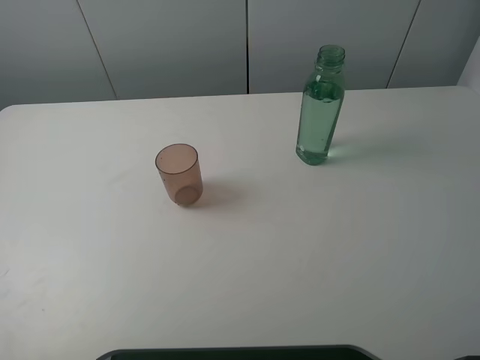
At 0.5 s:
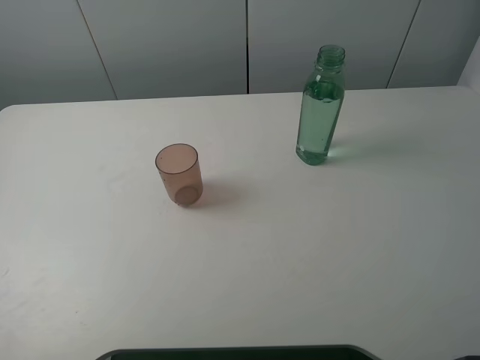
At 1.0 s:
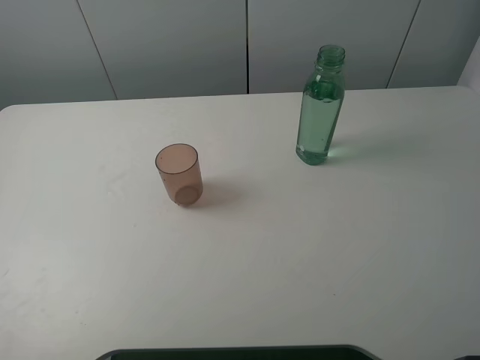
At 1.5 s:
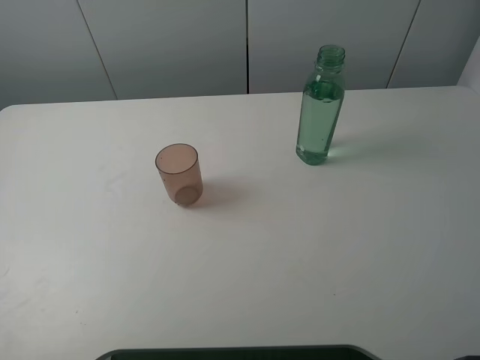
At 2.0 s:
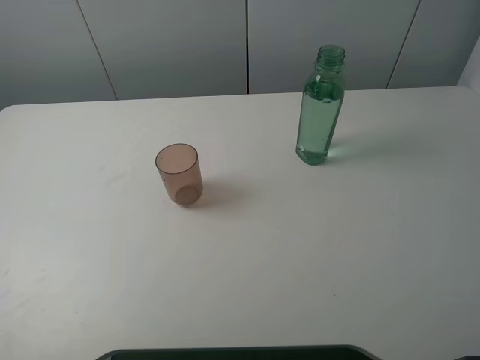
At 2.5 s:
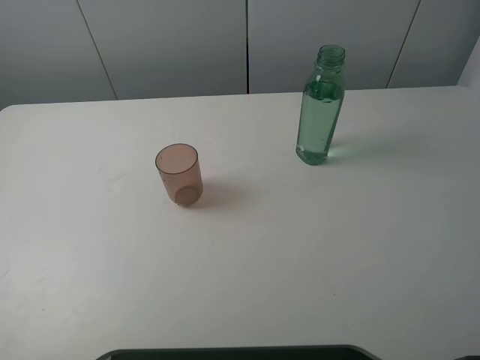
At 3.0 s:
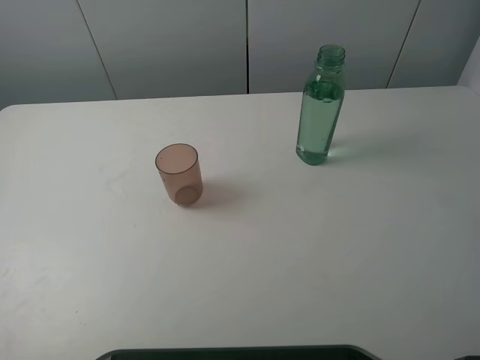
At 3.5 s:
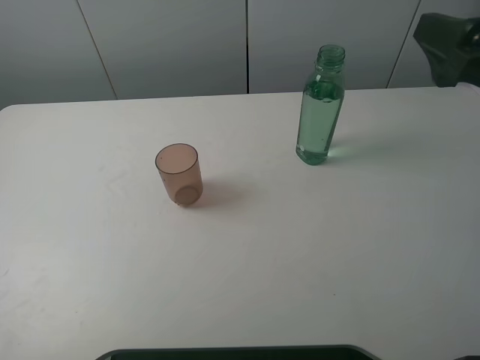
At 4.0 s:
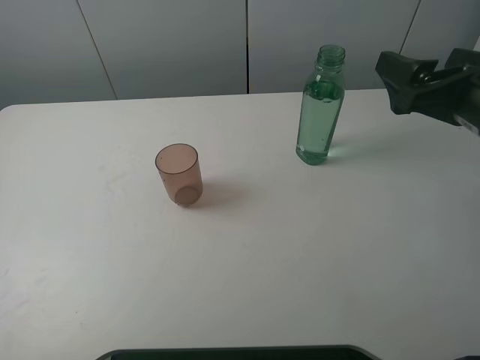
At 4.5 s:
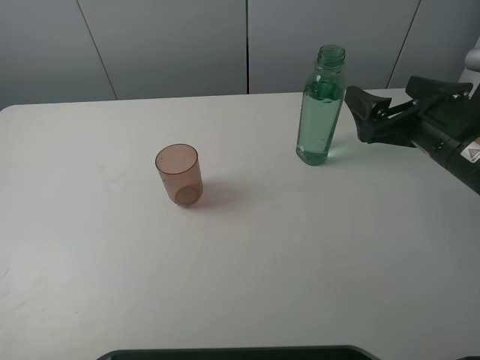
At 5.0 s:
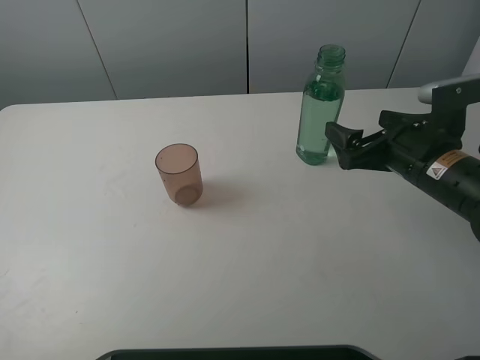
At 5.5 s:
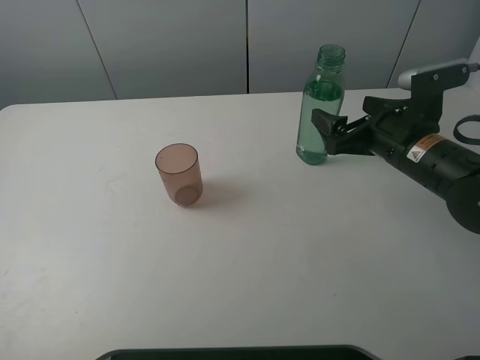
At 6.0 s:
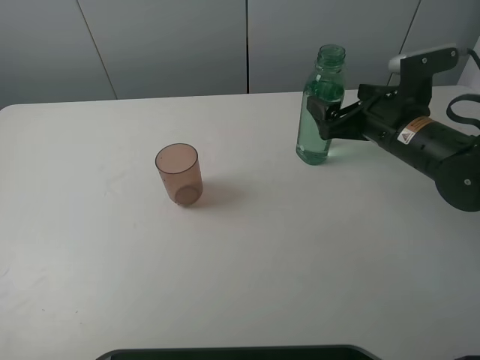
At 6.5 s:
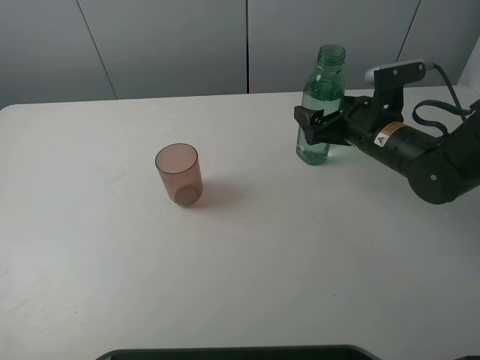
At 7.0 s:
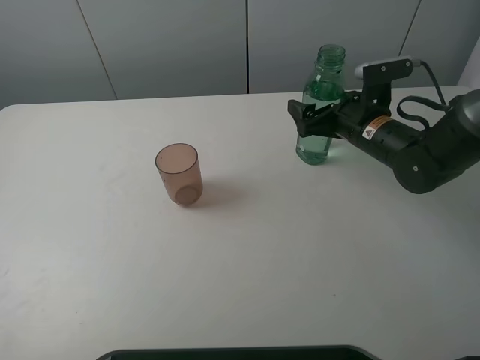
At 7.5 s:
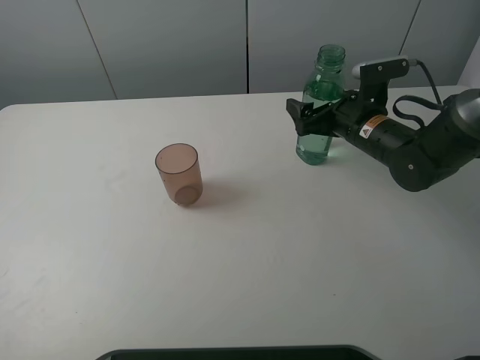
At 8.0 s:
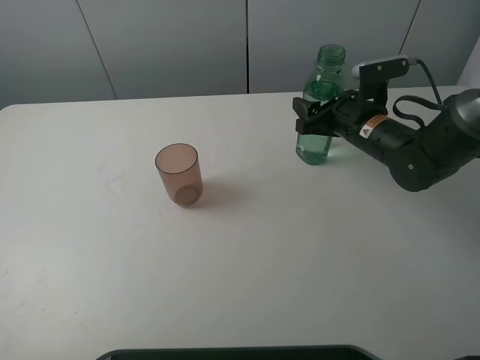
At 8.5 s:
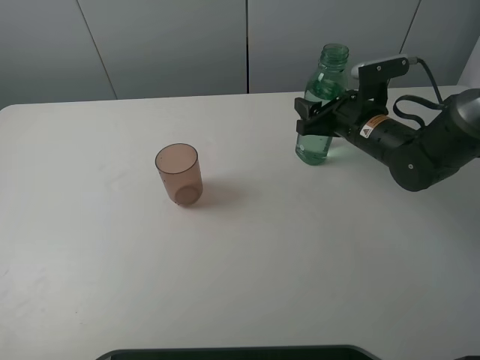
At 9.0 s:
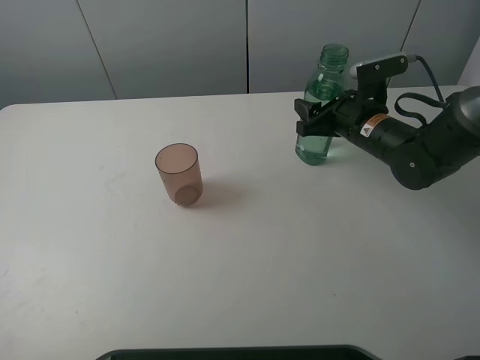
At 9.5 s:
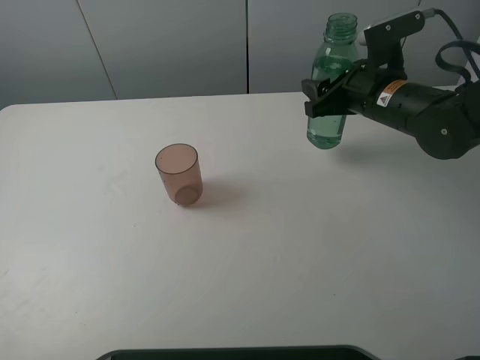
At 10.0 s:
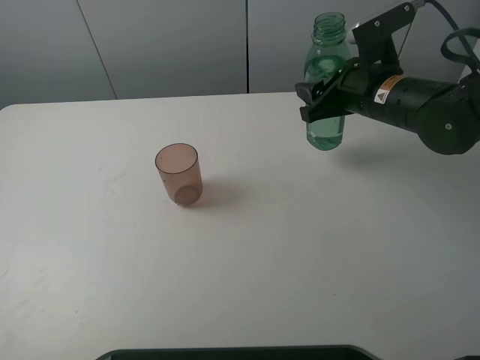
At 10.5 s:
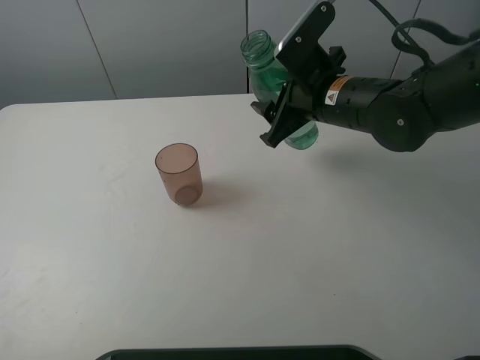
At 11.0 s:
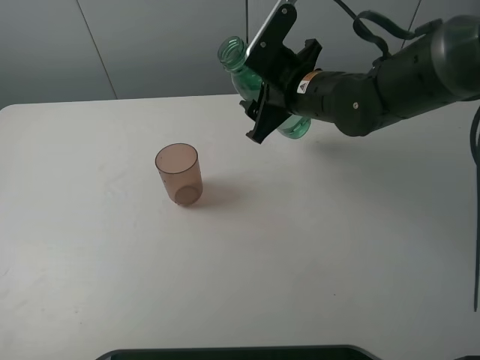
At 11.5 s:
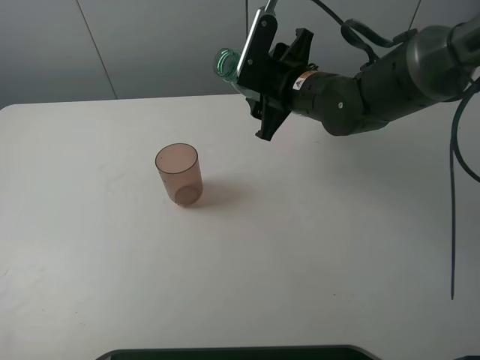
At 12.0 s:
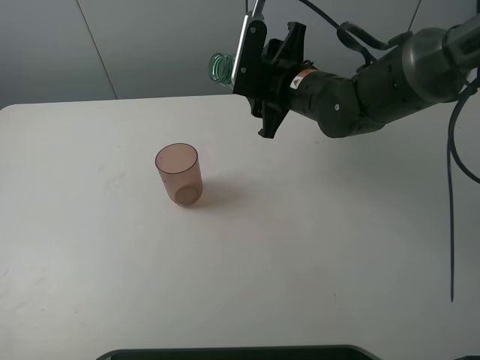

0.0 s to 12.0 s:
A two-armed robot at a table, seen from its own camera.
Task of the whole recording: pick up the bottle filled with water and pour it into the pink cup.
Step, 0.0 to 8.0 s: Grasp the green bottle with the right gripper.
2.0 to 4.0 s: The right gripper heads forward, covering some 20 cm.
4.0 to 6.0 s: The right gripper heads downward and forward, covering about 15 cm.
6.0 to 8.0 s: The right gripper goes approximately 5 cm forward.
8.0 to 10.0 s: The right gripper goes some 5 cm upward, and closes.
10.0 to 12.0 s: The right gripper goes about 10 cm to the left.

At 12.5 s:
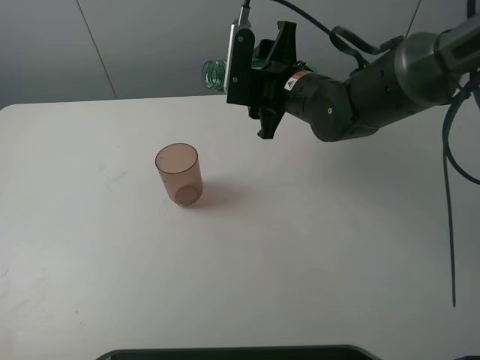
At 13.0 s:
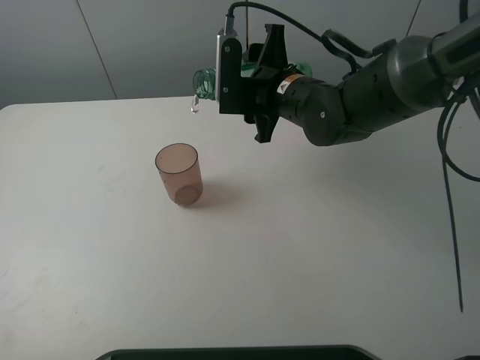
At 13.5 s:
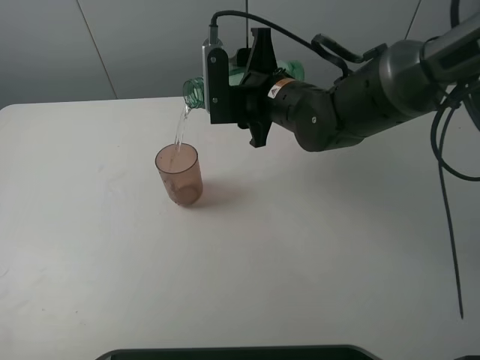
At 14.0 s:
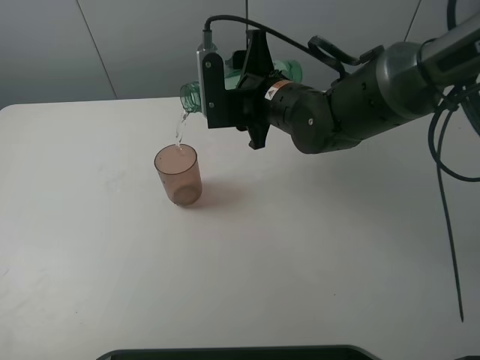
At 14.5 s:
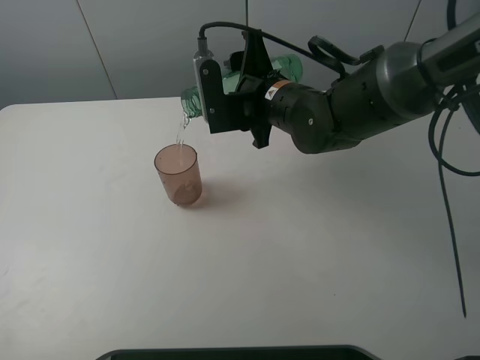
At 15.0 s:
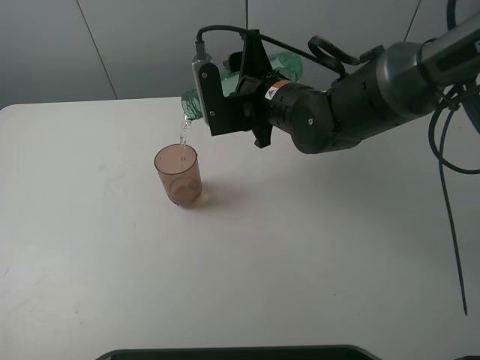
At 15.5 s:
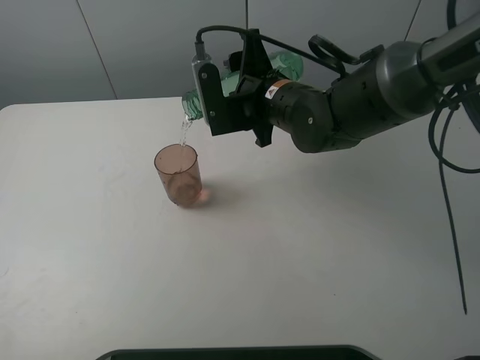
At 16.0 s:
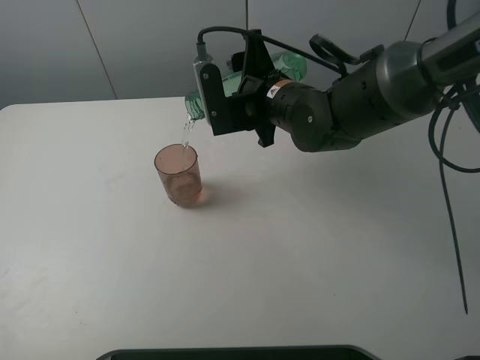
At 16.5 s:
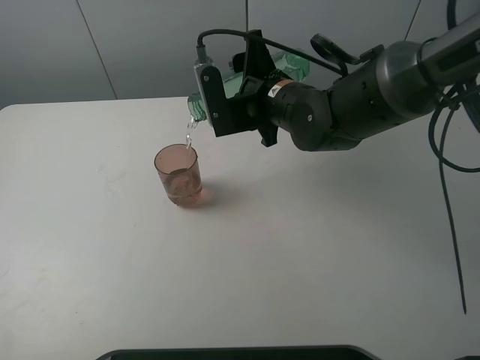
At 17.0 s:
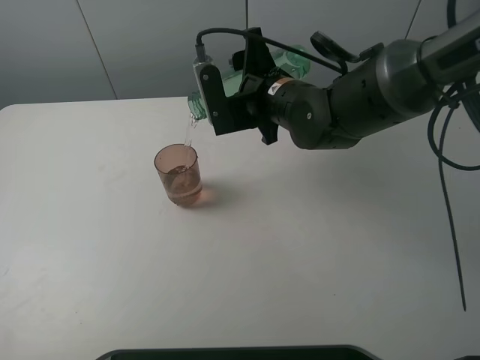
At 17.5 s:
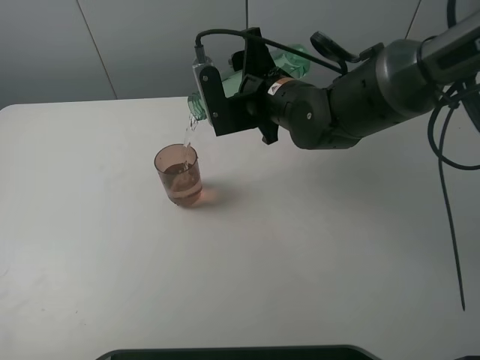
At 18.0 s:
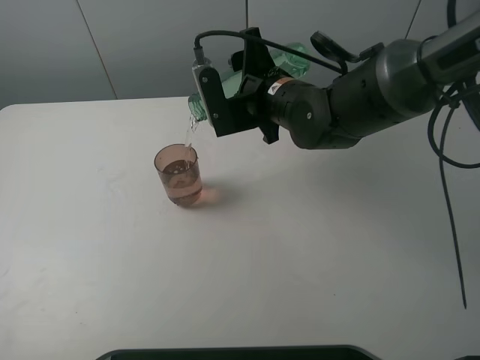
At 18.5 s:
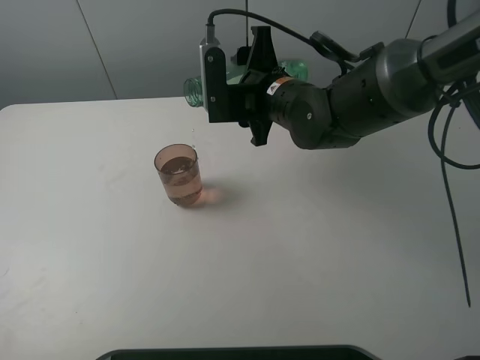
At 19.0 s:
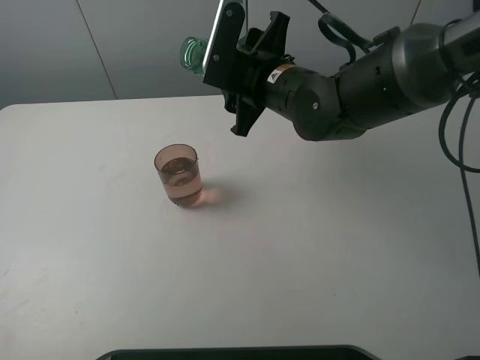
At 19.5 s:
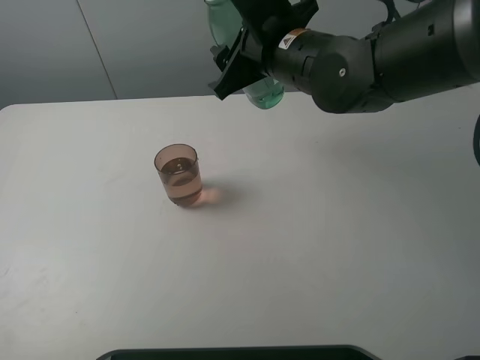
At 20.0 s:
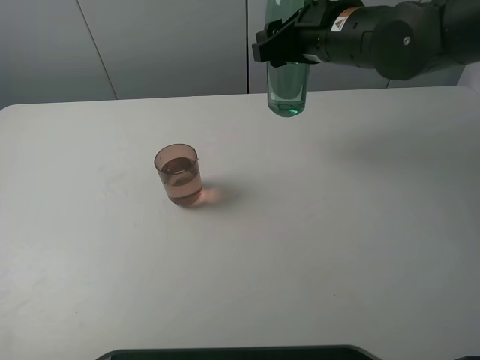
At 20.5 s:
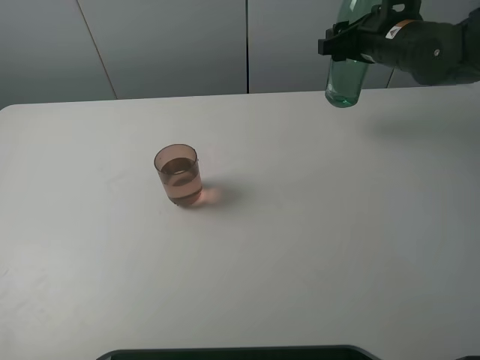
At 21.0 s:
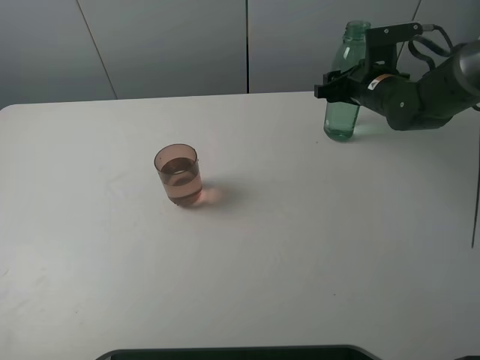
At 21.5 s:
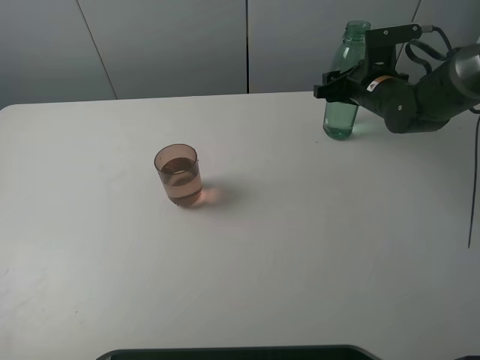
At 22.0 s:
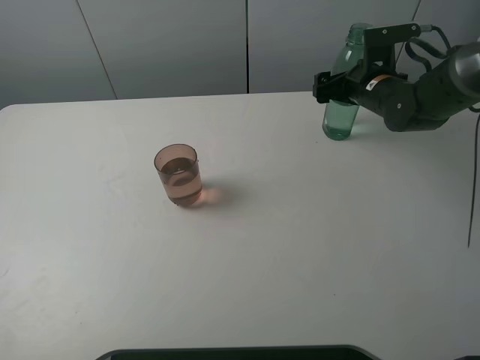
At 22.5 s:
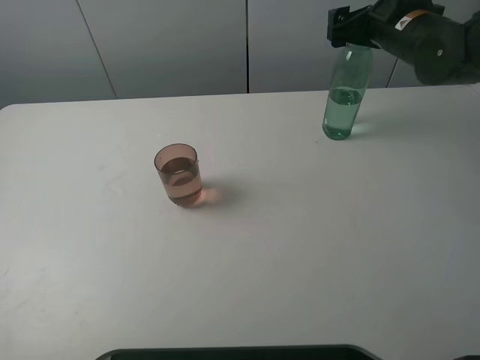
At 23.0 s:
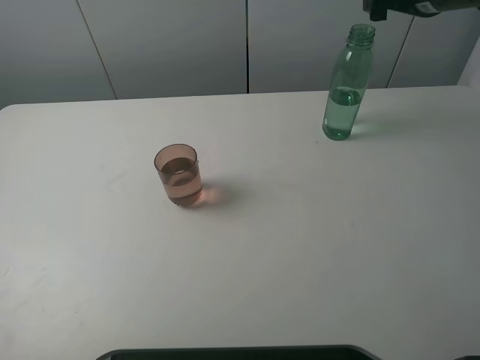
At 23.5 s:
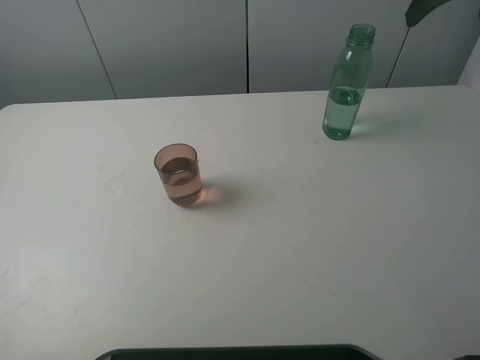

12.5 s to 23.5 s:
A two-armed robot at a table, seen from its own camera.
Task of the whole recording: pick up the bottle filled with water and pour it into the pink cup.
Step, 12.5 to 18.5 s: Pour water from green bottle to pink cup with the right gripper.
Step, 19.0 to 22.0 s: Place the green bottle with the right gripper.
12.5 to 14.5 s: There are only small adjustments of the grippers.
14.5 to 16.0 s: Neither gripper changes place.
16.0 to 18.0 s: The two grippers keep their place.
18.0 to 20.0 s: The right gripper shifts approximately 5 cm upward.
20.0 to 21.5 s: The right gripper travels downward, to the right and forward by about 20 cm.
21.5 to 23.5 s: The right gripper shifts roughly 20 cm upward, and opens up.

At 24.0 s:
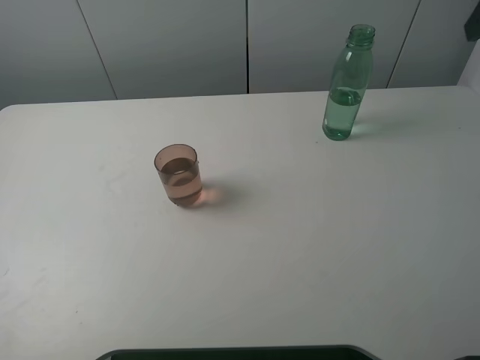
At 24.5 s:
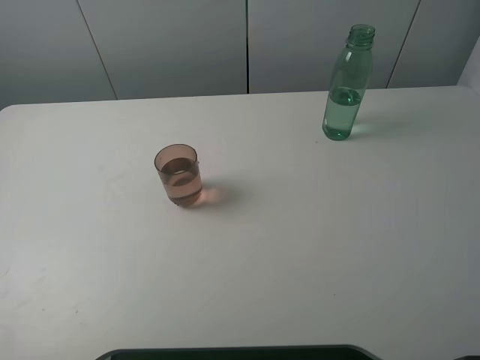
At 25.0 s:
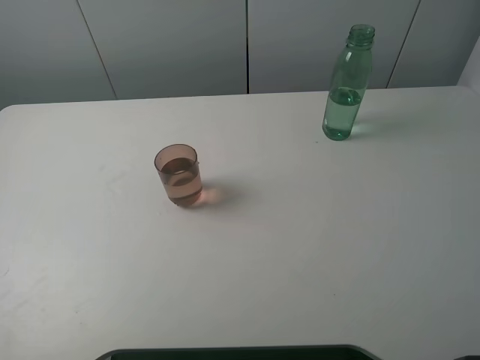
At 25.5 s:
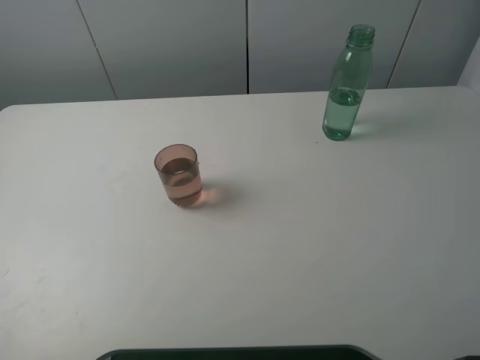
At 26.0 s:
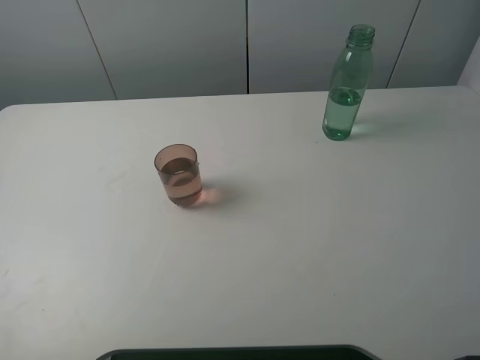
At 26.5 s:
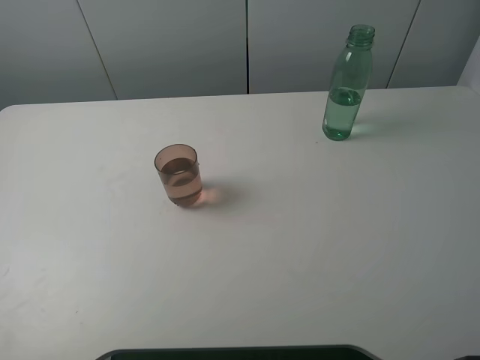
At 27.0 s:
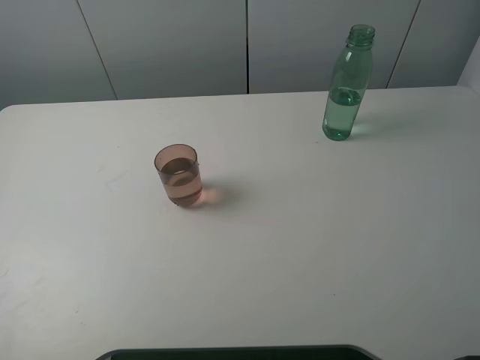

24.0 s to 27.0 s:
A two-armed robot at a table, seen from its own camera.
Task of the whole recording: pick up the bottle filled with water and pour it into the pink cup.
25.5 to 27.0 s: Both grippers stay about where they are.
